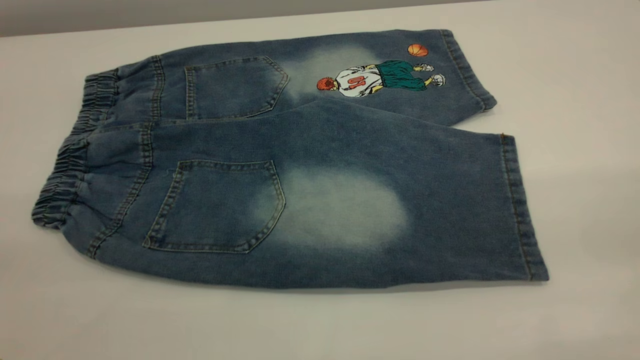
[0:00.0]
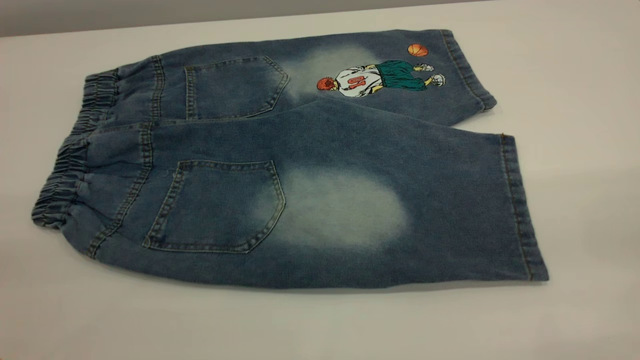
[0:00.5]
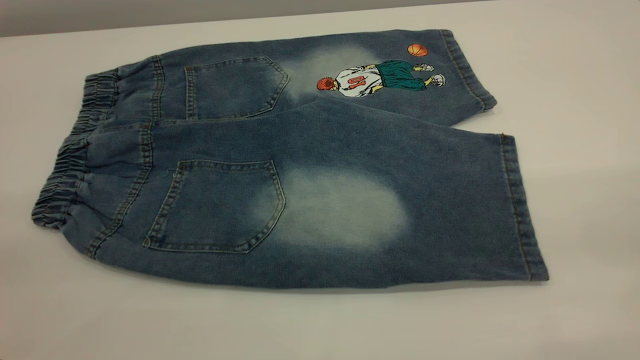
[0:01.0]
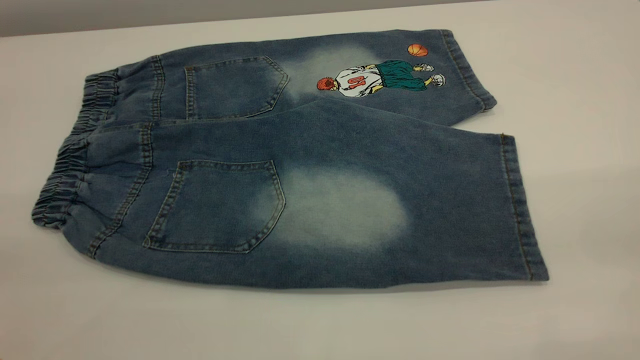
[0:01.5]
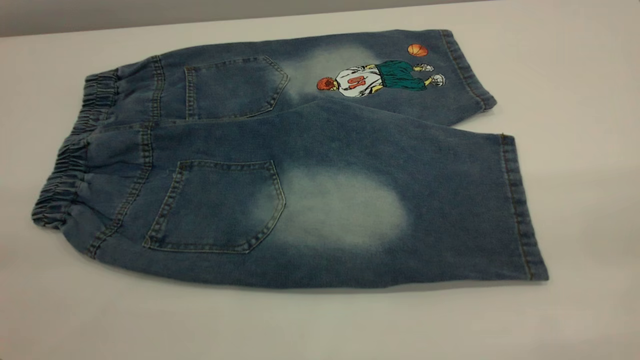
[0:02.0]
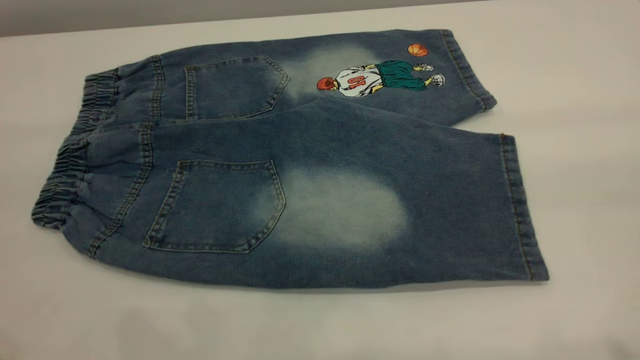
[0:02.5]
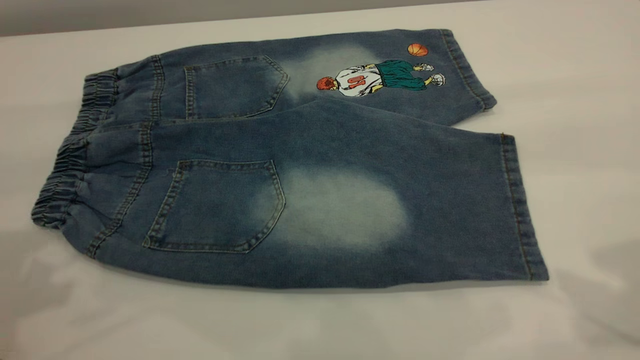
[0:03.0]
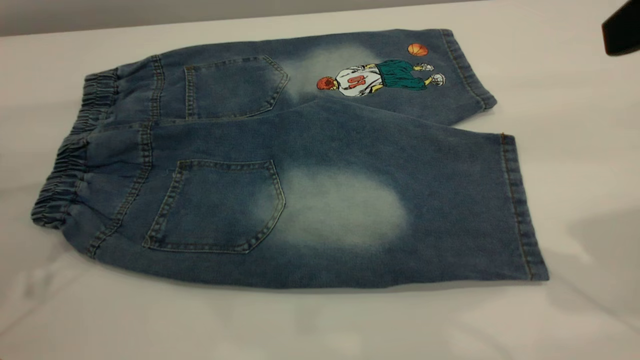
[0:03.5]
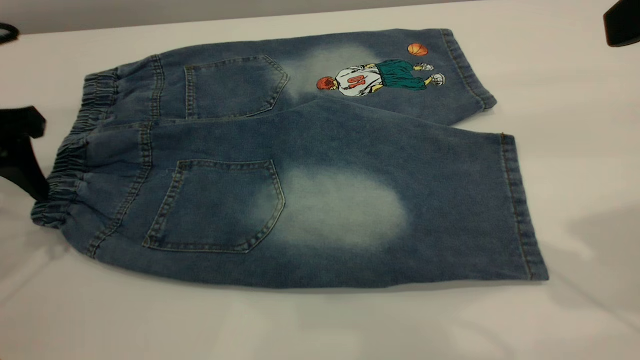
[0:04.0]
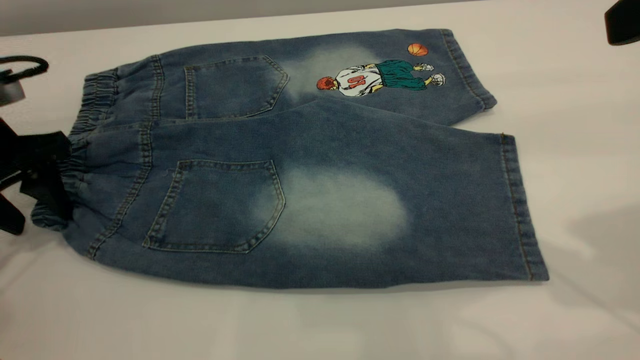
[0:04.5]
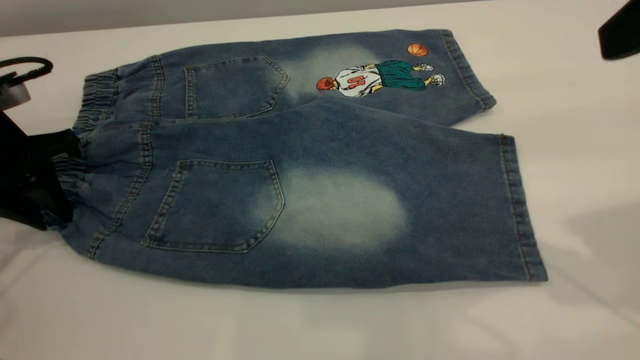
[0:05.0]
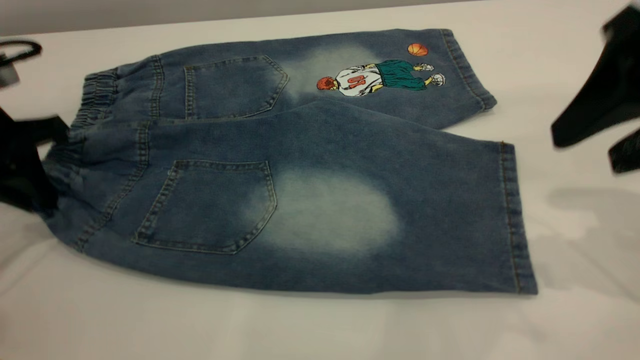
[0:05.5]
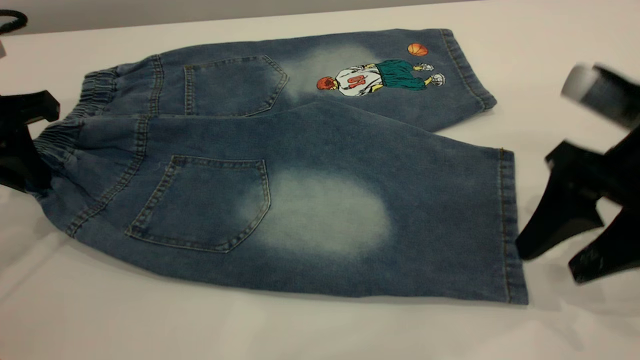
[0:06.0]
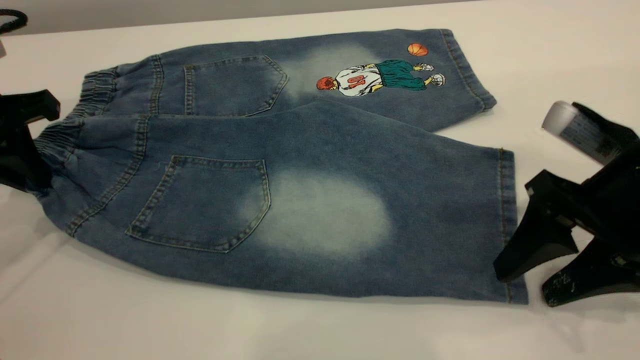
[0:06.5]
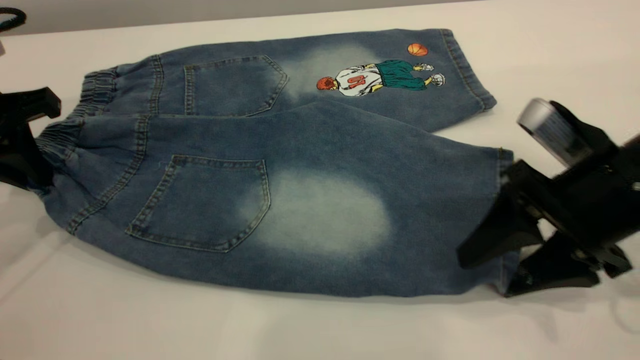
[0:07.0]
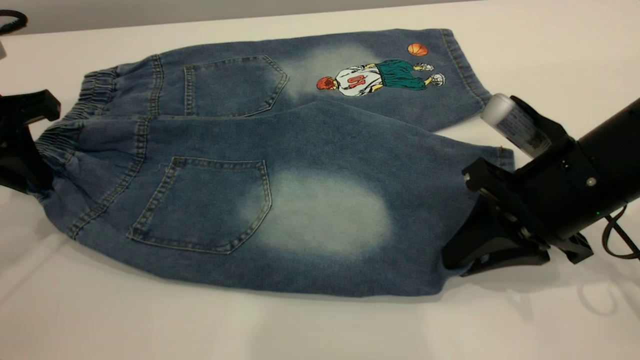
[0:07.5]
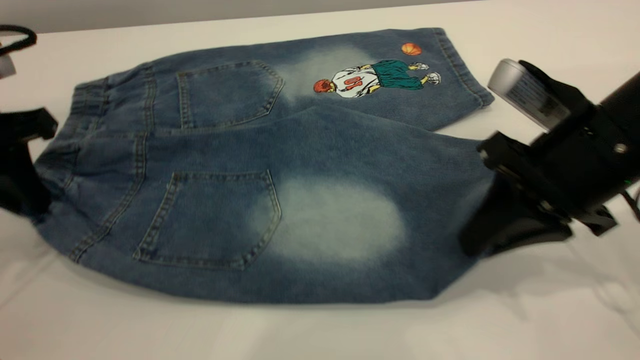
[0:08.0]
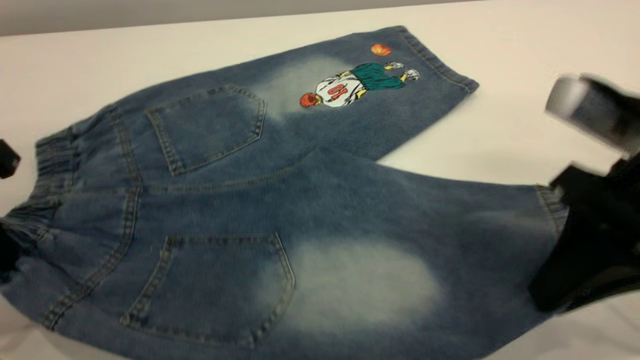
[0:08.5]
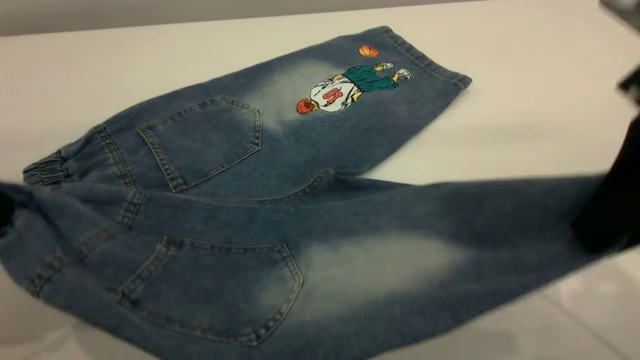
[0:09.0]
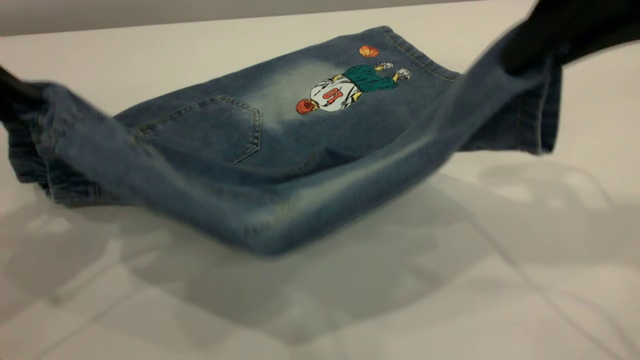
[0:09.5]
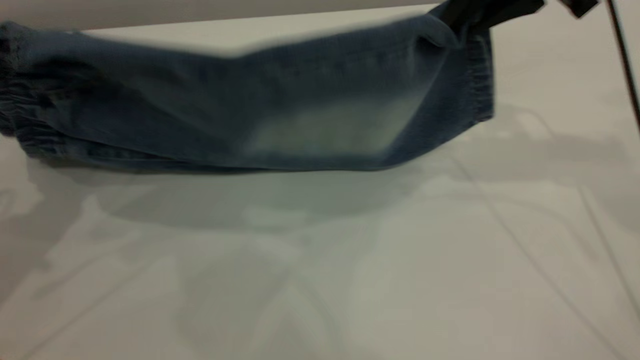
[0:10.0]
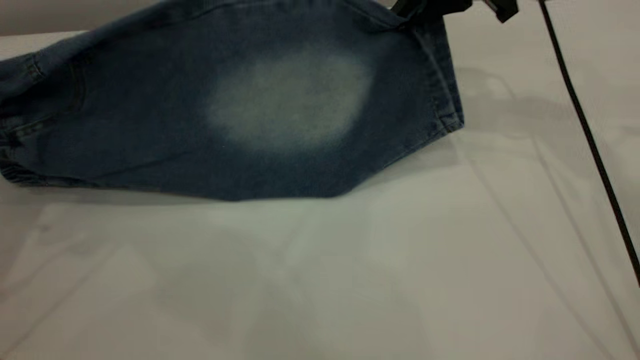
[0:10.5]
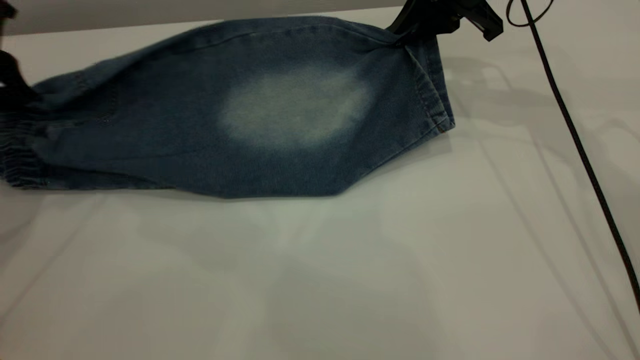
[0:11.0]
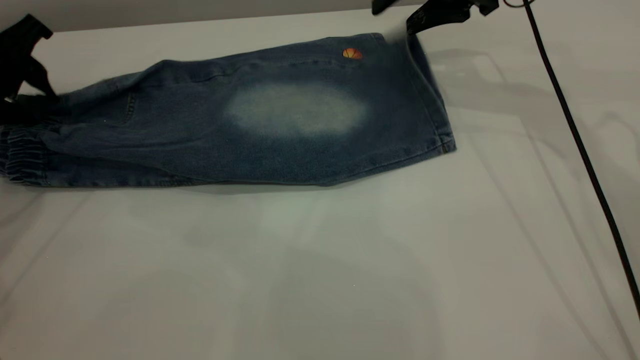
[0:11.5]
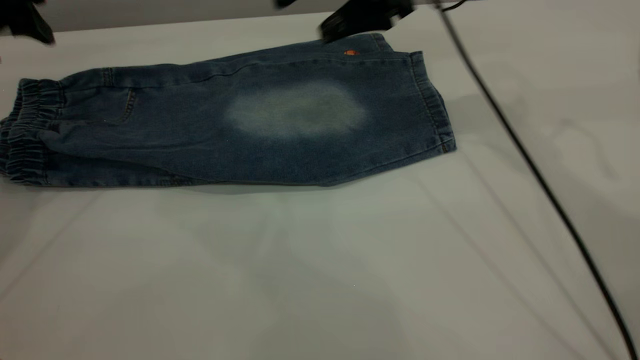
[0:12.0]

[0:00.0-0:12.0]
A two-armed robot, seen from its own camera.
Step, 0:00.0 to 0:11.5: Fold the bottom of the pants upward.
0:02.0 to 0:04.0: The left gripper goes approximately 35 cm forward and downward, while the right gripper shifts approximately 20 cm forward.
0:04.0 to 0:06.0: The right gripper shifts approximately 15 cm downward. The left gripper closes its fingers.
0:06.0 to 0:08.0: The right gripper closes.
0:08.0 to 0:10.0: The right gripper is displaced forward and upward by about 20 cm, while the left gripper travels upward by some 10 cm.
0:10.0 to 0:12.0: The right gripper moves to the left and forward, some 10 cm, and opens its fingers. Meanwhile the left gripper moves forward, roughly 10 cm, and opens its fingers.

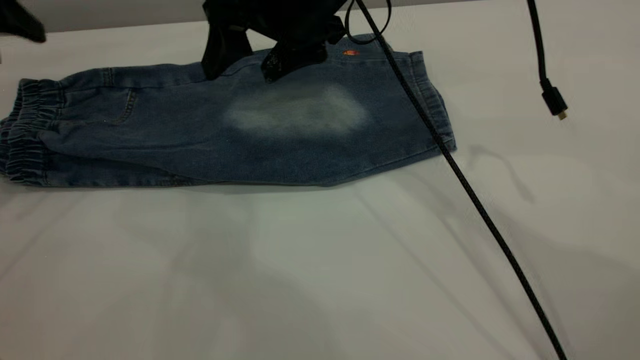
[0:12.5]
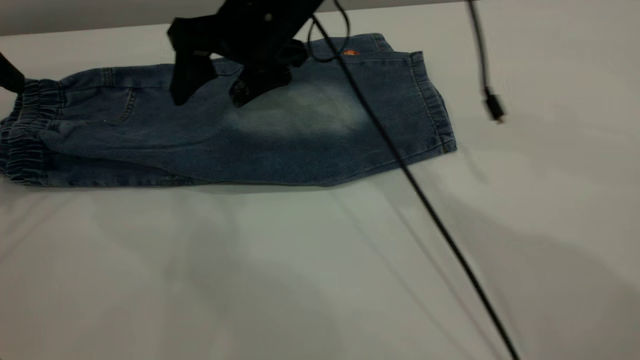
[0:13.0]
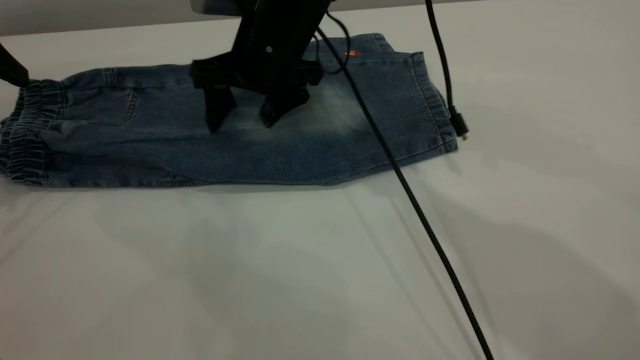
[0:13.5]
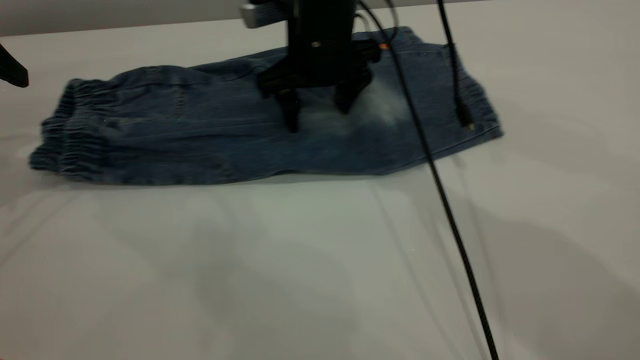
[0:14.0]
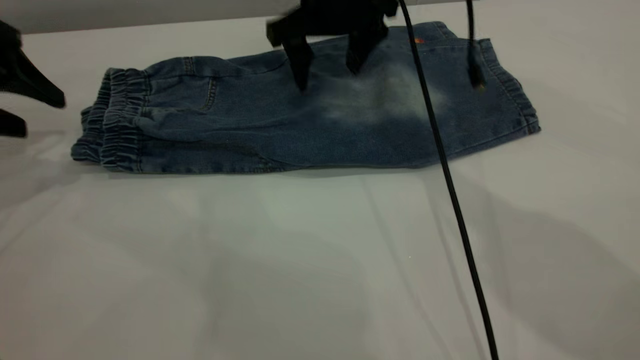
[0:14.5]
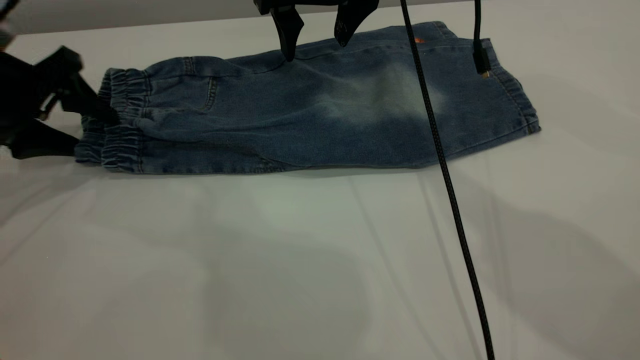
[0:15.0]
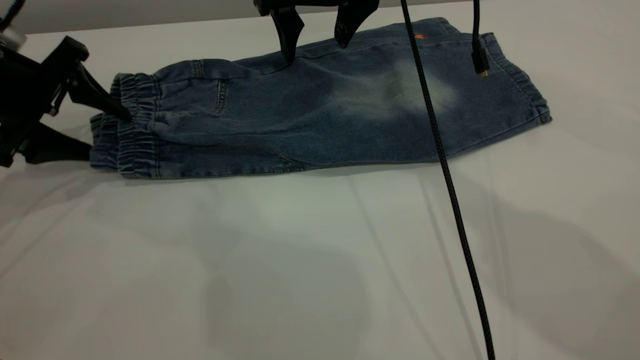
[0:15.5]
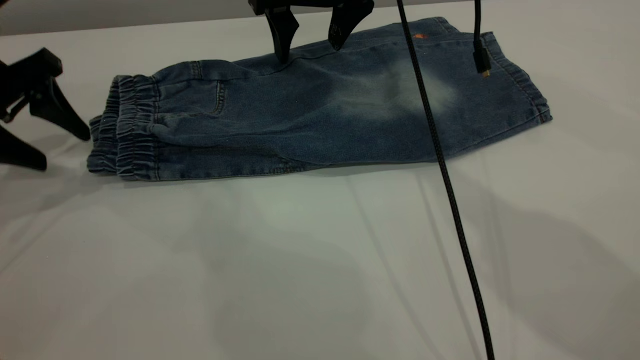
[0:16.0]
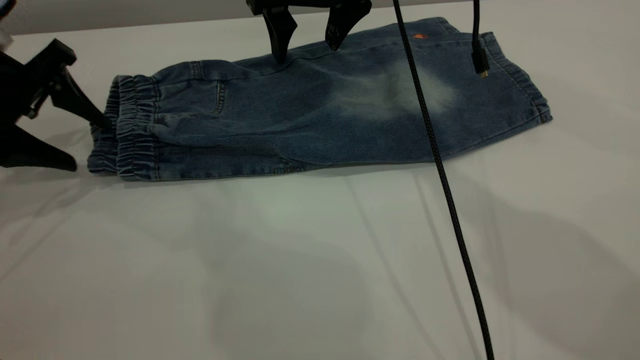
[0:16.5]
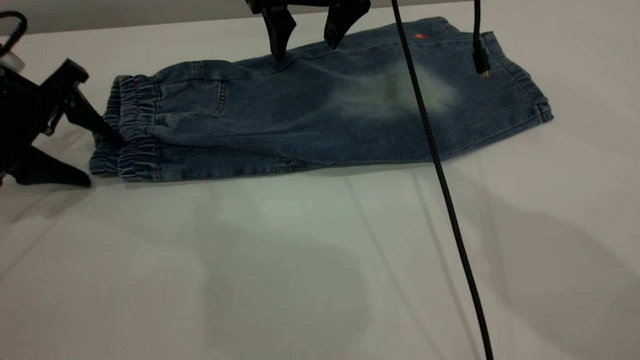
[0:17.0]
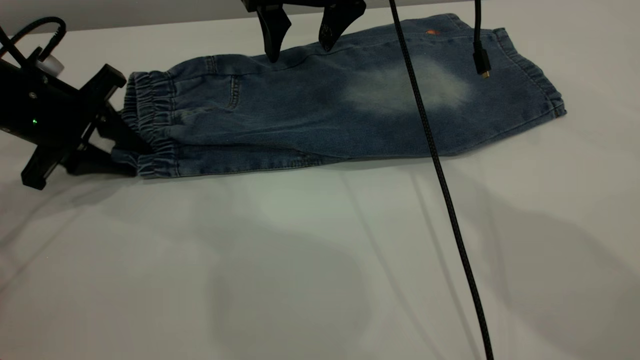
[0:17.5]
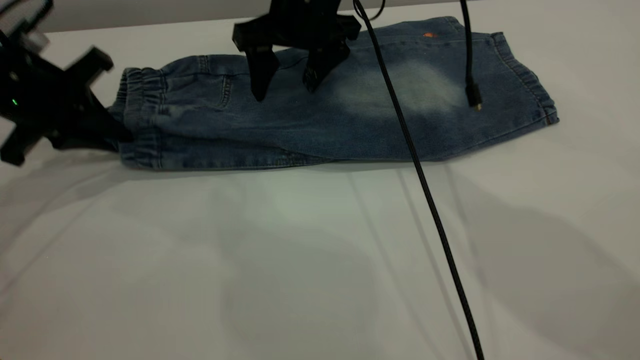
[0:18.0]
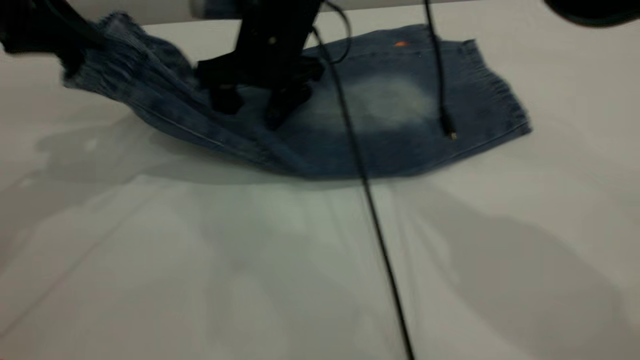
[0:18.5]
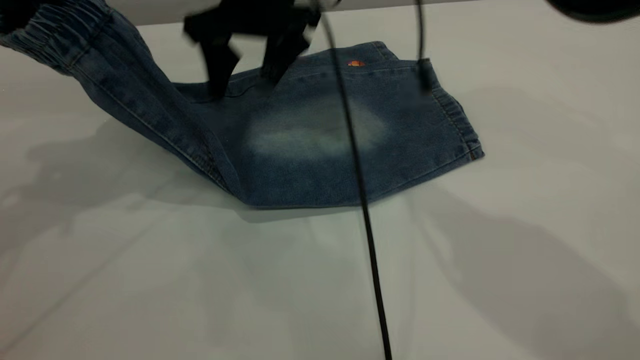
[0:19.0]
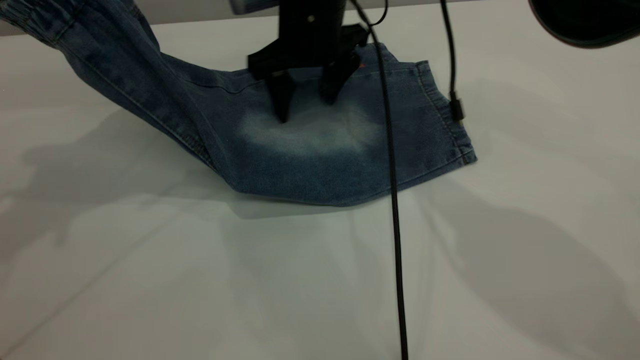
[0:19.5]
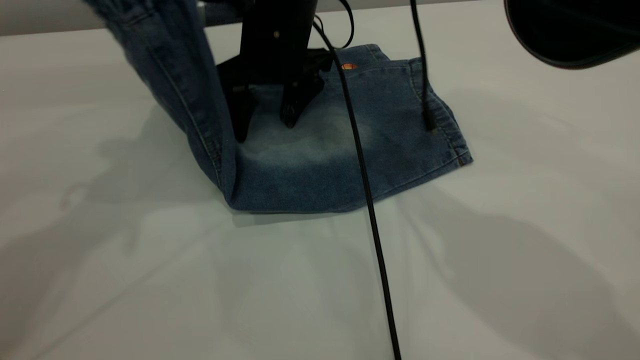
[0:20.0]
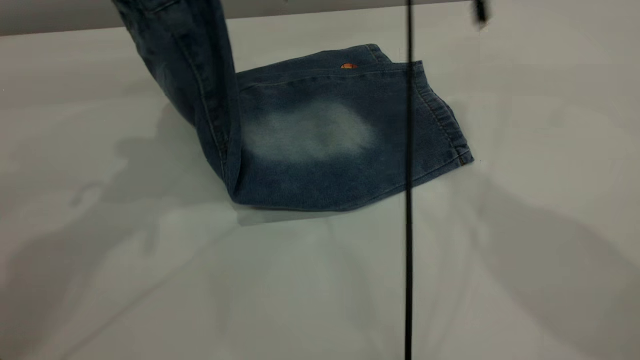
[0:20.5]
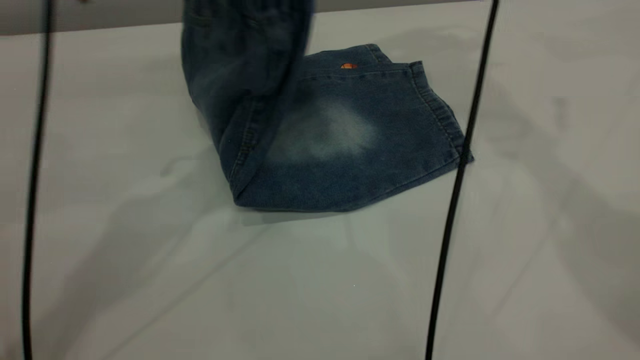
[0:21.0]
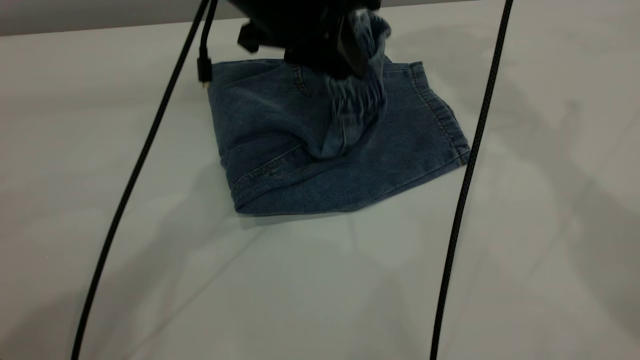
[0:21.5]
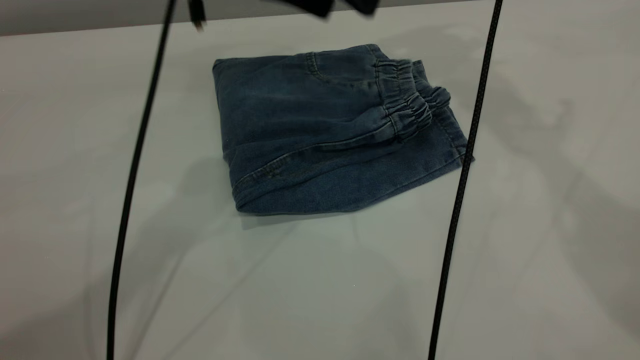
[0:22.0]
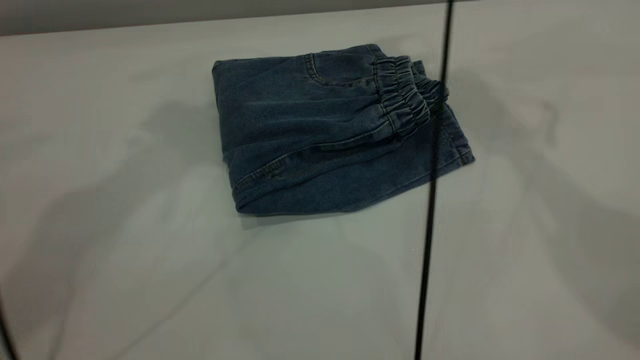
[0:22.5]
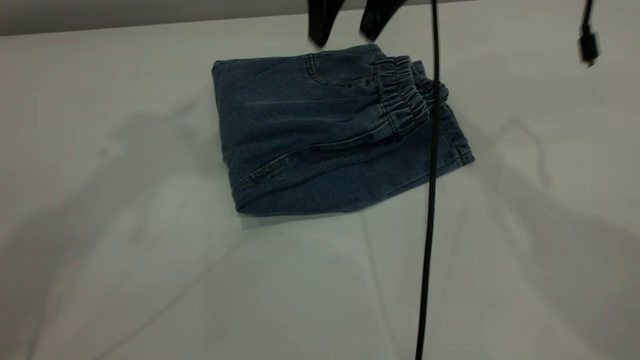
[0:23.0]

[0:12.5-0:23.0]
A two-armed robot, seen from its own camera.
Step, 0:12.5 to 0:22.0: Fold the pants from left to right.
0:12.5 to 0:14.5: The left gripper goes approximately 5 cm downward. The right gripper is displaced forward by approximately 5 cm.
0:14.5 to 0:16.5: The grippers move only a little.
0:16.5 to 0:19.0: The left gripper moves upward, roughly 15 cm, and closes up.
0:19.0 to 0:21.0: The right gripper is displaced upward and to the right by roughly 25 cm. Meanwhile the left gripper is displaced to the right by roughly 20 cm.
0:21.0 to 0:23.0: The right gripper heads downward and to the left, covering roughly 20 cm; the left gripper is displaced upward and to the left by about 20 cm, and opens its fingers.
